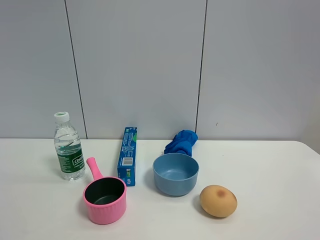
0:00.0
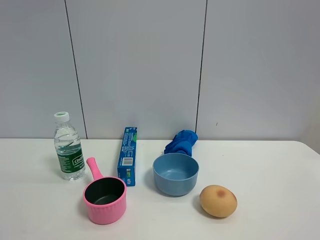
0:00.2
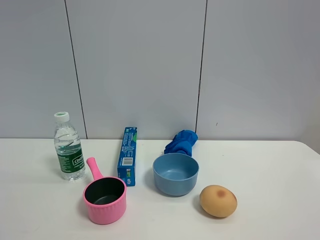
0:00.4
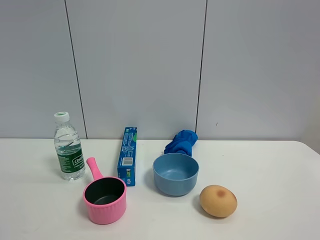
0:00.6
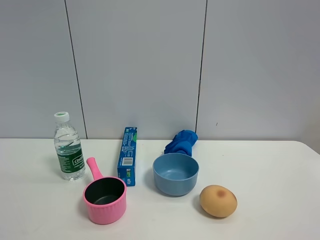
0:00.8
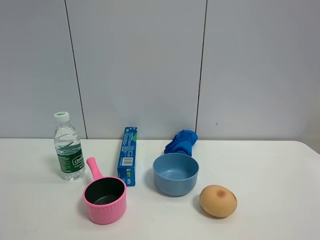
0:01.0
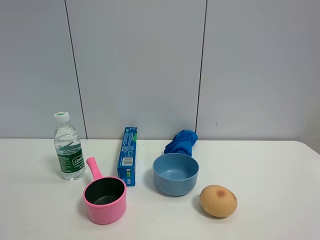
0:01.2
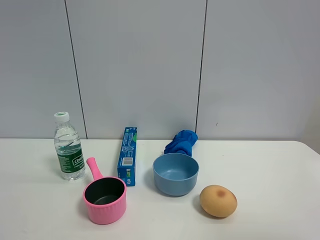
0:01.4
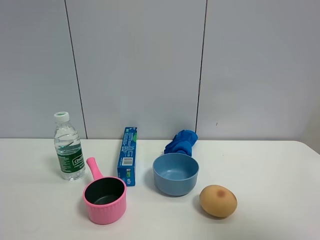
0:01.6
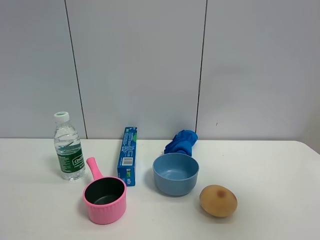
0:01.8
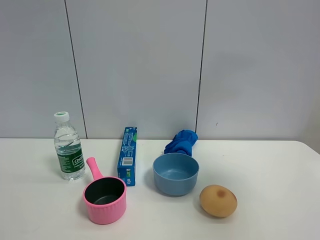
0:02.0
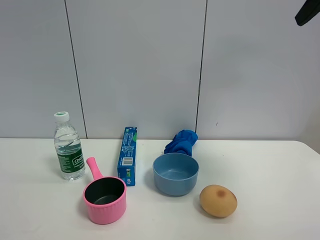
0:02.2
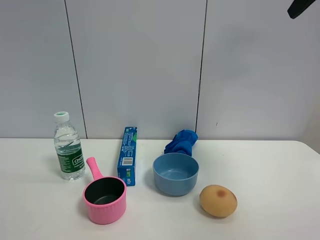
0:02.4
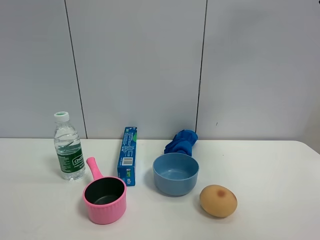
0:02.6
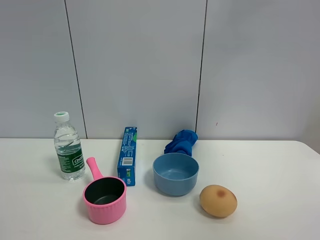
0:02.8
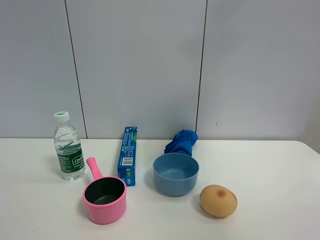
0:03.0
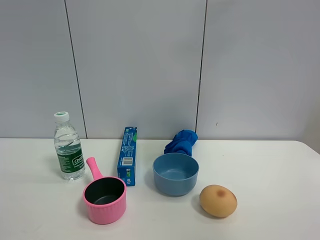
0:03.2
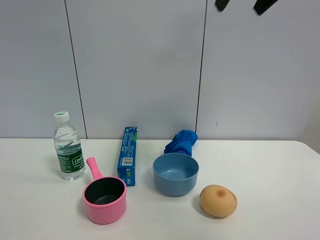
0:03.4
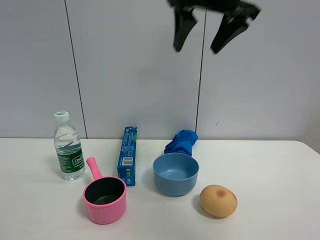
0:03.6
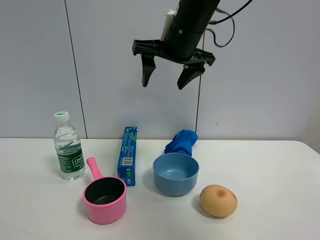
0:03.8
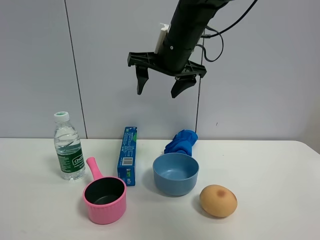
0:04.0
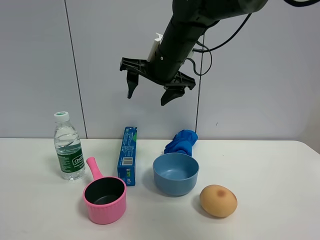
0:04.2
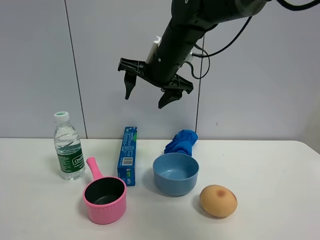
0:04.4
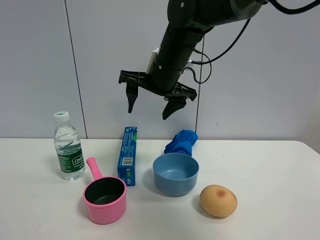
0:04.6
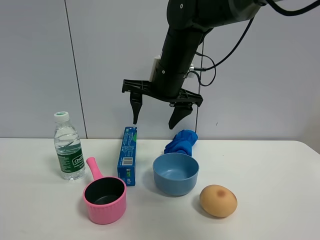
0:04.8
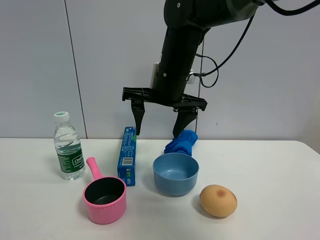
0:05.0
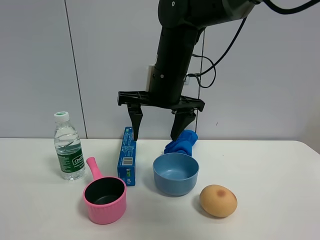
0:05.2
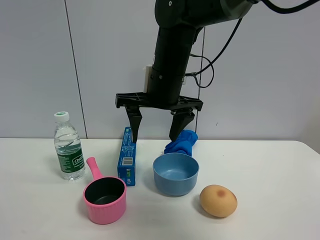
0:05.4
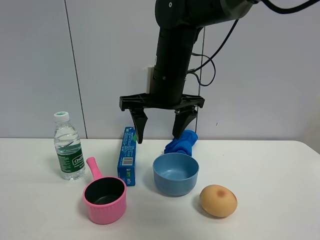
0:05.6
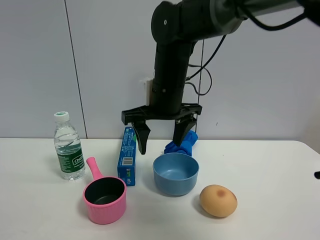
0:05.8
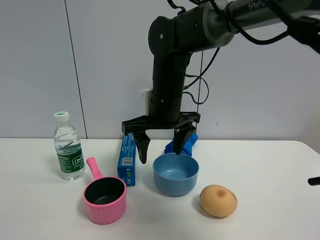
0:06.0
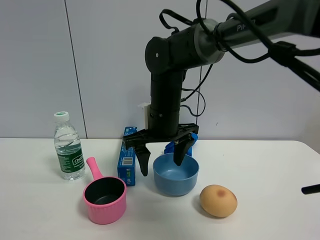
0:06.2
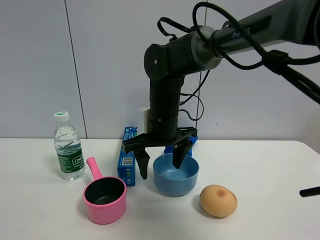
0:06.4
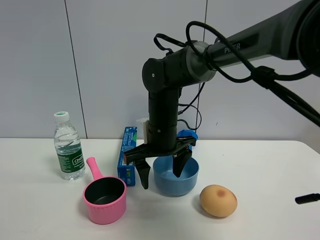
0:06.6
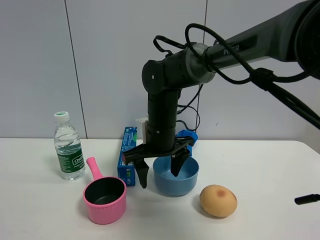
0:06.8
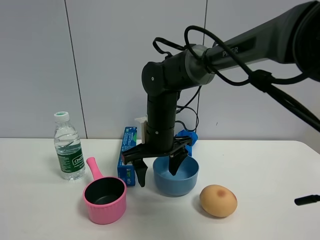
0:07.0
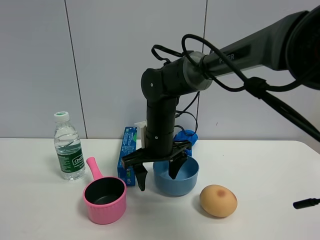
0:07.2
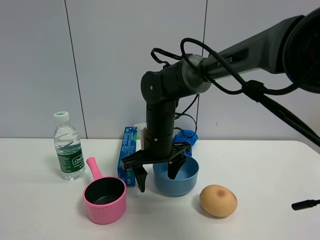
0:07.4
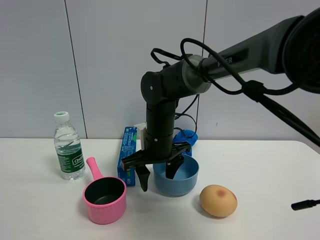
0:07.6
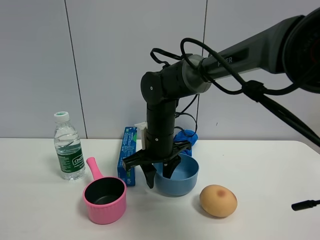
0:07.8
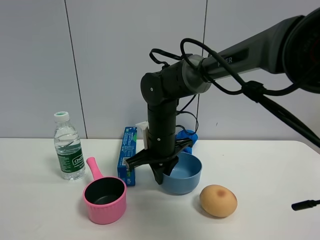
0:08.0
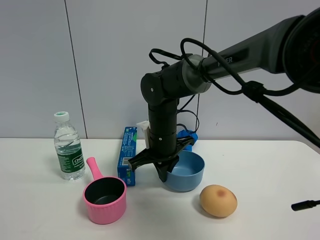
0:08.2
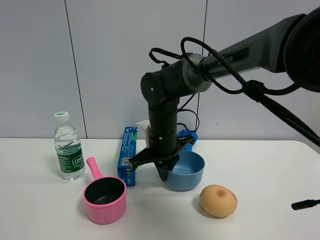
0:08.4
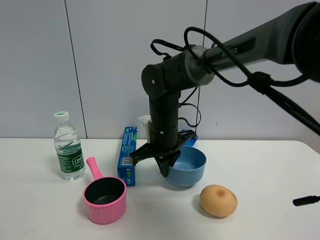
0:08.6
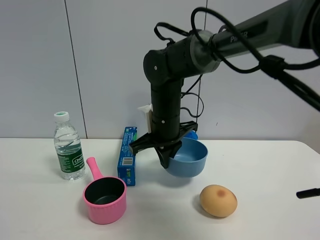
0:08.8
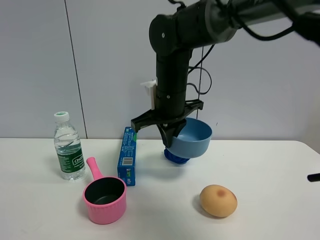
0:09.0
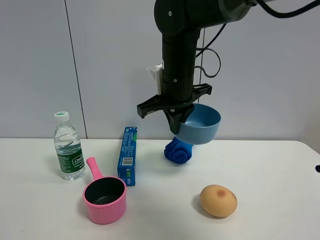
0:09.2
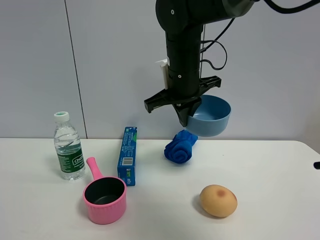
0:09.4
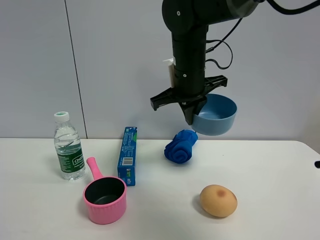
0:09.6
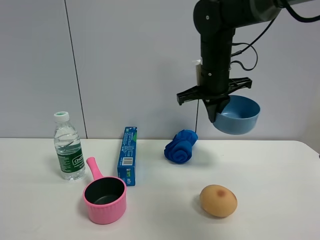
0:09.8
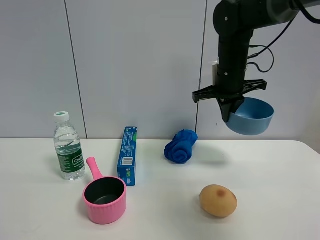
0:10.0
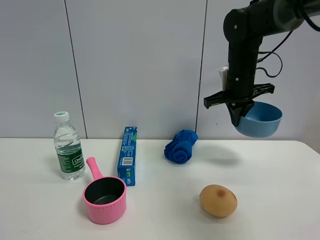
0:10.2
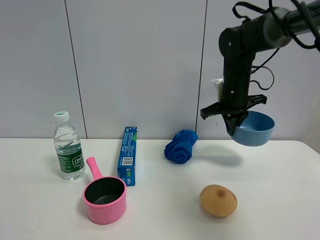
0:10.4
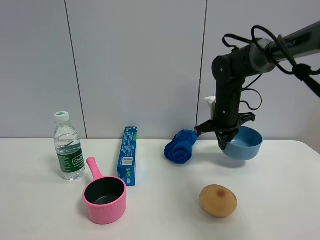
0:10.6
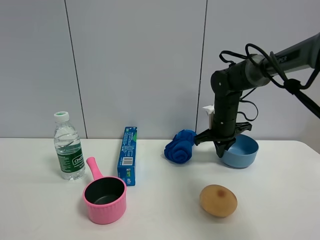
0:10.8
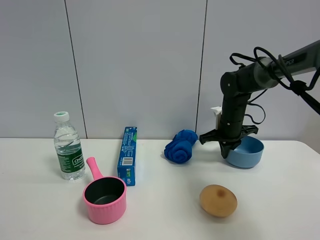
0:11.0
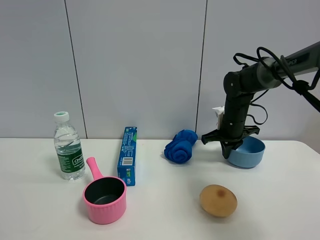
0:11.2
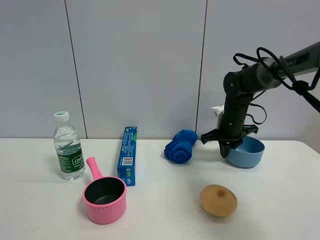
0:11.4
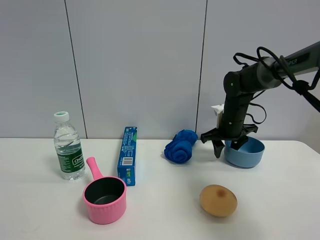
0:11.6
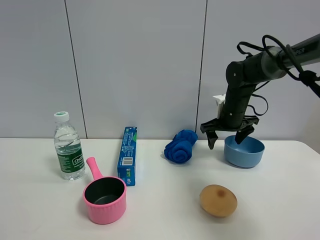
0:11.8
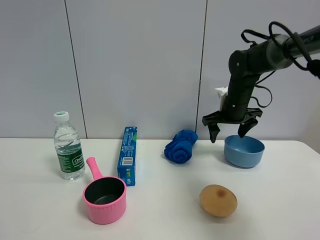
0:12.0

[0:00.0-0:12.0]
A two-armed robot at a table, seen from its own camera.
Task of the whole recording: the gripper move the object.
Step, 0:00.0 to 0:08.0: Grasp the blue bowl with the right gripper.
Step, 0:08.2 to 0:11.6: Place the blue bowl on the table with the right gripper.
0:00.0 to 0:01.6: The right gripper travels upward and forward by some 15 cm.
0:01.6 to 0:03.0: The right gripper travels forward by some 25 cm.
0:03.0 to 0:04.4: The right gripper goes some 30 cm to the left, downward and forward.
0:04.4 to 0:06.0: The right gripper travels downward by about 5 cm.
0:06.0 to 0:07.6: The right gripper is displaced downward by roughly 10 cm.
0:07.6 to 0:09.0: The right gripper travels upward by some 10 cm, and closes its fingers.
0:09.0 to 0:10.4: The right gripper is displaced to the right and forward by about 15 cm.
0:10.4 to 0:12.0: The right gripper moves approximately 10 cm downward and comes back, and opens up.

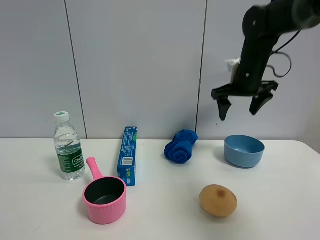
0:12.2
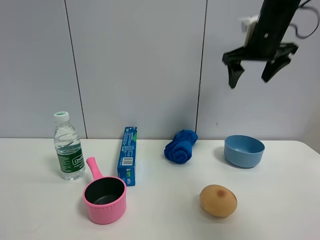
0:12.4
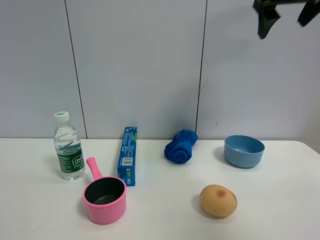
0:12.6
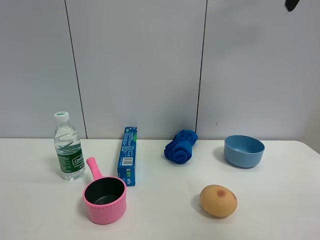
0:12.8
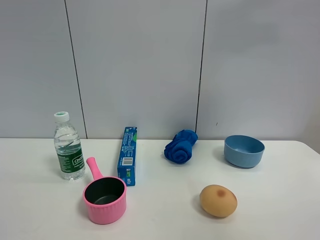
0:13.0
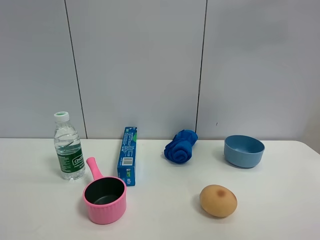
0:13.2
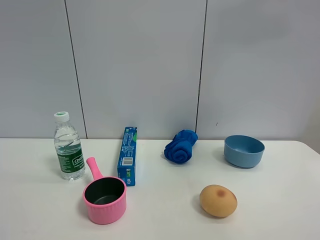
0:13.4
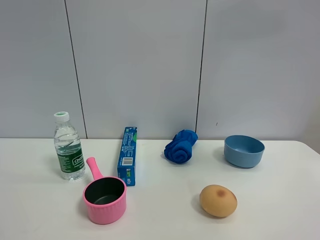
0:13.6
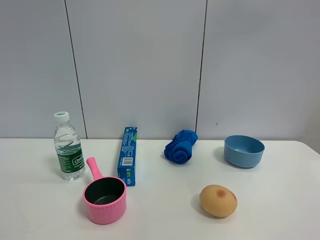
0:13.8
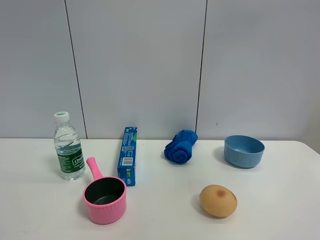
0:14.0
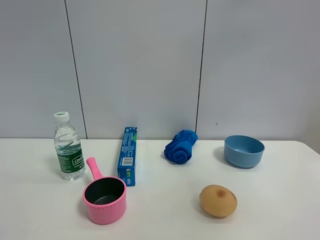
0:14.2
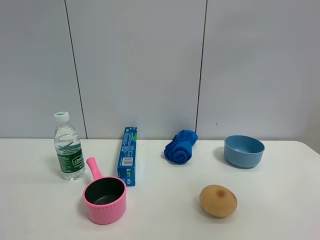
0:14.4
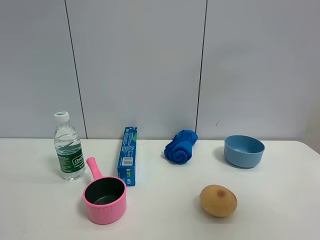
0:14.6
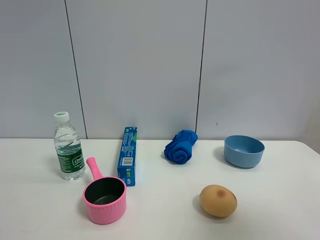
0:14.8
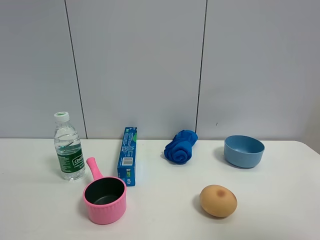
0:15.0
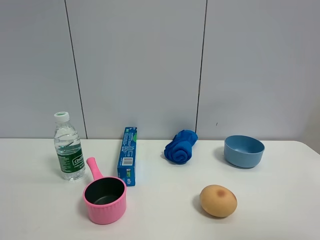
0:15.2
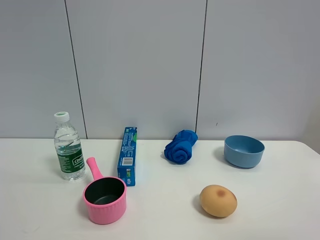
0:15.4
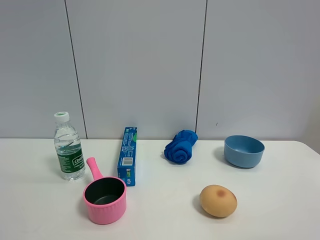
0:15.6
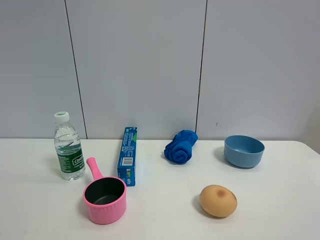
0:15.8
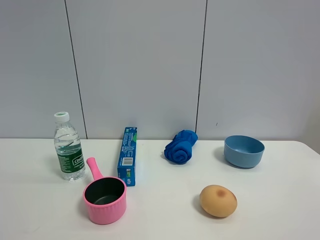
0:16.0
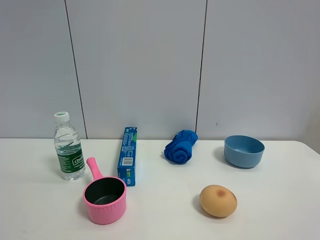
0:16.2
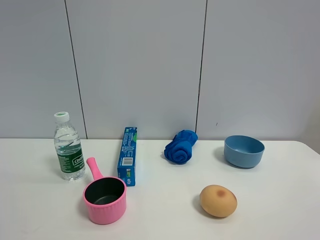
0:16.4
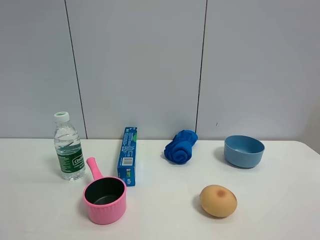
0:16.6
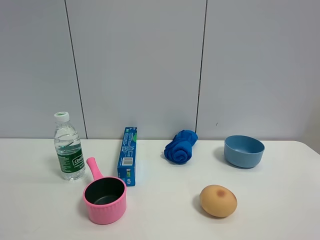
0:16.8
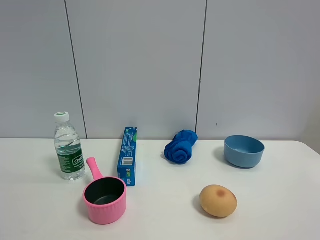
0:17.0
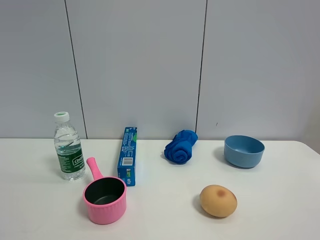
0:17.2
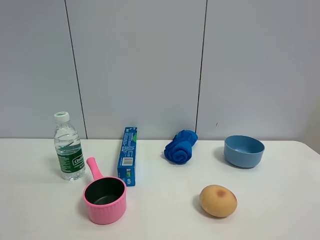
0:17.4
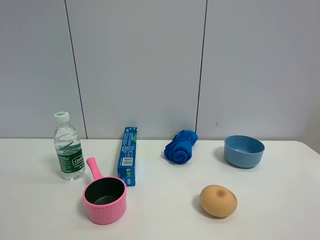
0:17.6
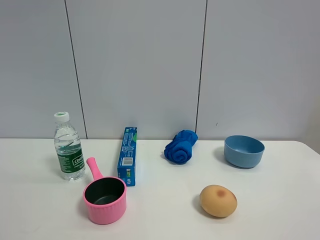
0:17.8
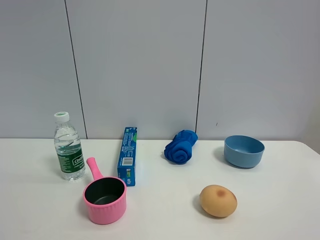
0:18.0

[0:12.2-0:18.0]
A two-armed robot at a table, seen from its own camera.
Task of the whole recording: the gripper move the object.
0:12.2 to 0:13.6: The right gripper is displaced upward, backward and to the right by about 40 cm.
0:13.6 to 0:15.0: The right gripper heads downward and backward, covering roughly 25 cm.
0:15.0 to 0:16.6: The right gripper goes about 10 cm downward.
0:16.6 to 0:18.0: The two grippers keep their place.

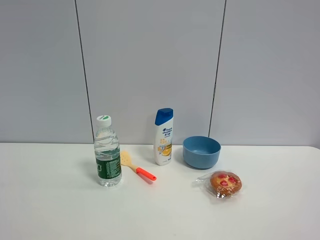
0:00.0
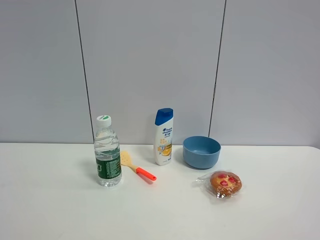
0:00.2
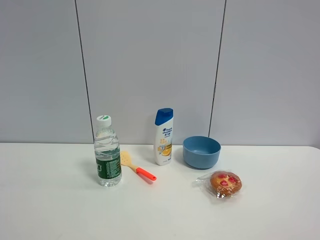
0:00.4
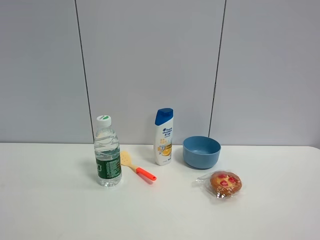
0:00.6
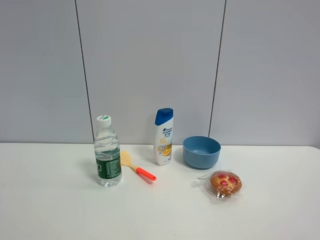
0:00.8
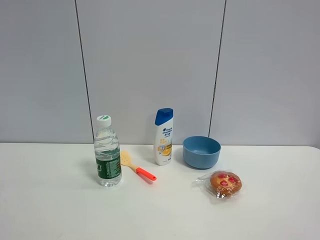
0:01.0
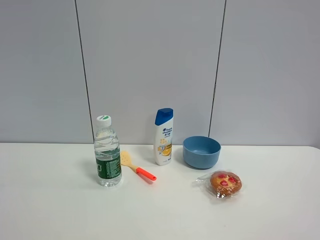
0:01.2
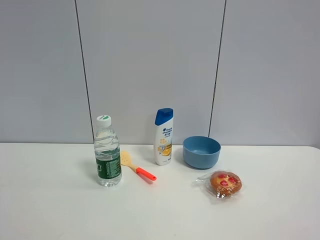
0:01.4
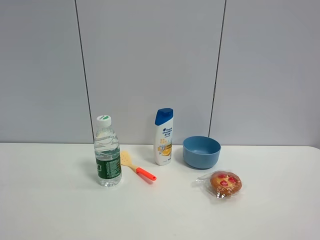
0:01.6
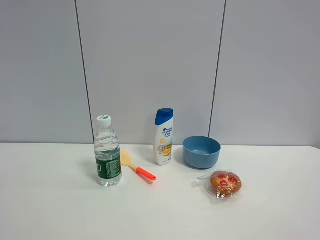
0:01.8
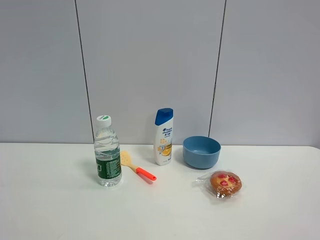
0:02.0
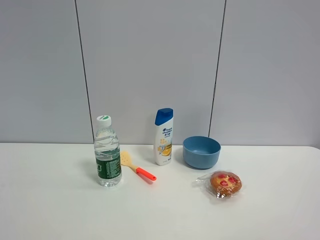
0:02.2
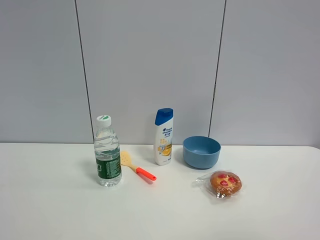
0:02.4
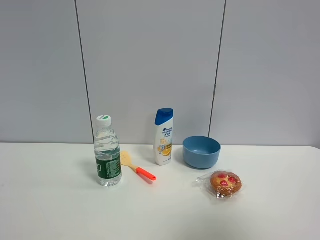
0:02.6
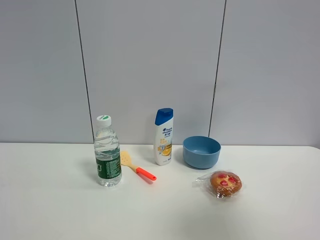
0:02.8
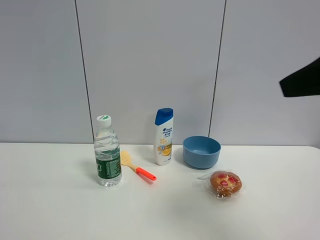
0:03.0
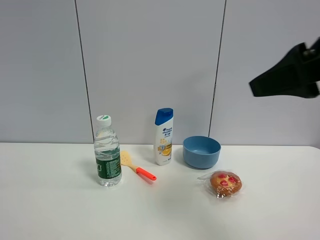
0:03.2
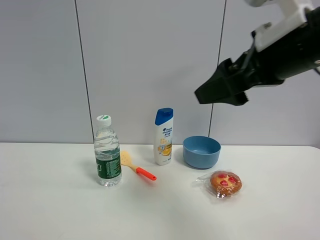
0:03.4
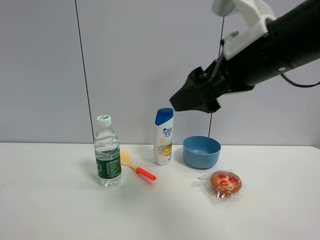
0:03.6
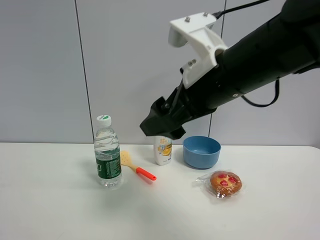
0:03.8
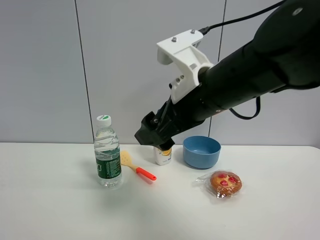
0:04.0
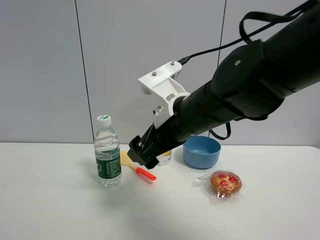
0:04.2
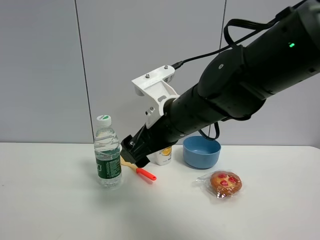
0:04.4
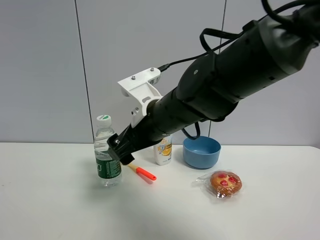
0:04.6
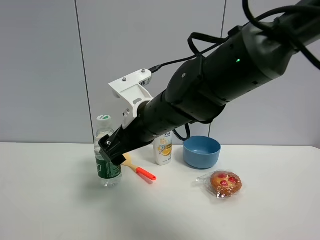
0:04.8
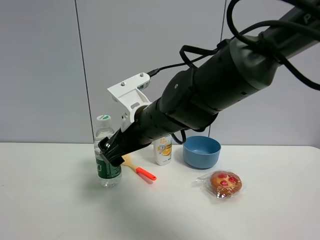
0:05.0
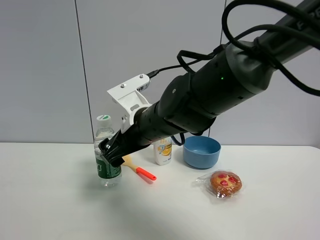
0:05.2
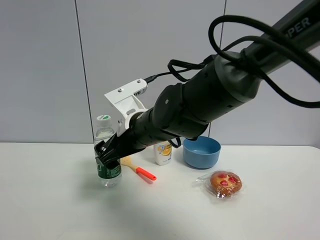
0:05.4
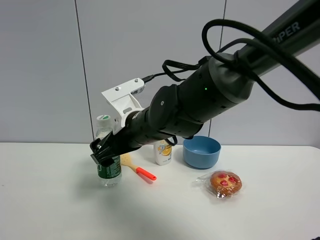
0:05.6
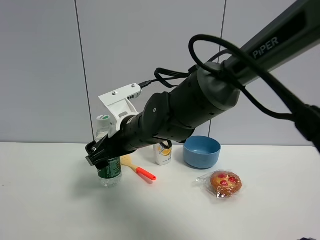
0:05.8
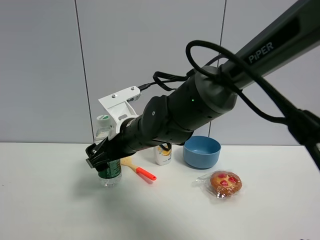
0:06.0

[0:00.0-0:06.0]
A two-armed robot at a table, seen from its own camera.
Task of the whole recording: the gripper move the object.
0:00.0 to 0:01.6: Both grippers stay put.
0:01.6 to 0:03.0: The right gripper moves forward, roughly 20 cm.
0:03.0 to 0:04.4: The right gripper goes roughly 30 cm to the left, downward and forward.
0:04.4 to 0:06.0: The right gripper goes some 10 cm to the left and downward.
